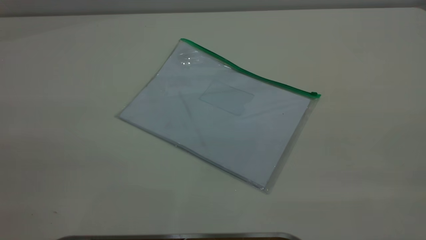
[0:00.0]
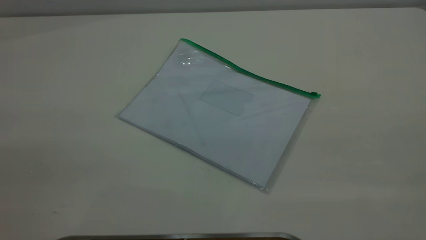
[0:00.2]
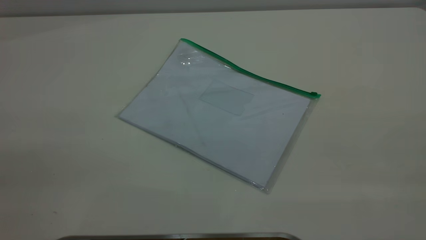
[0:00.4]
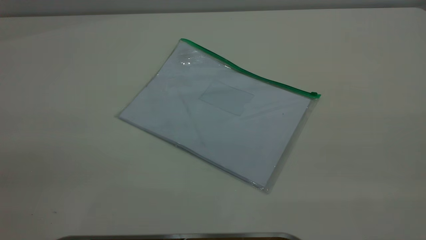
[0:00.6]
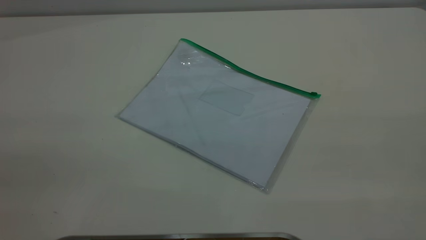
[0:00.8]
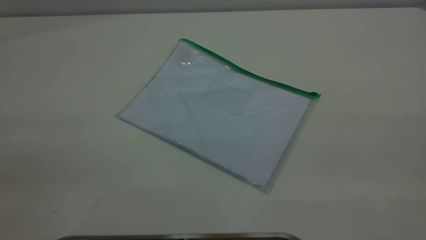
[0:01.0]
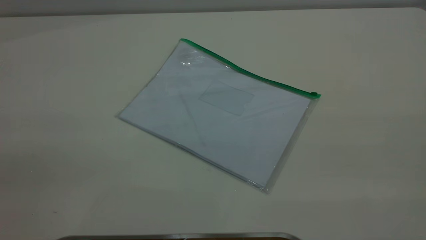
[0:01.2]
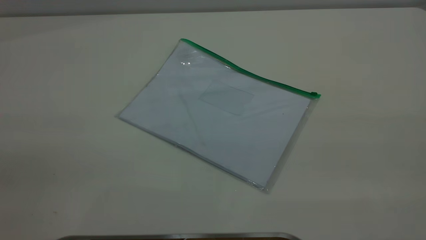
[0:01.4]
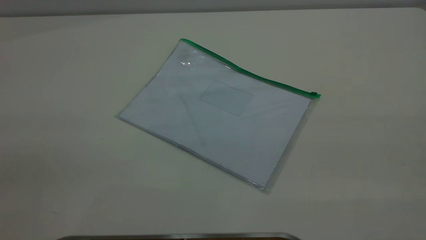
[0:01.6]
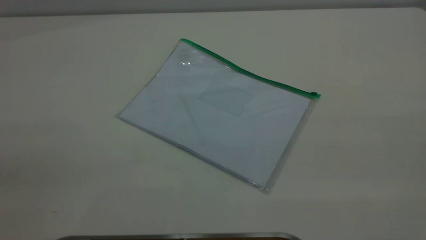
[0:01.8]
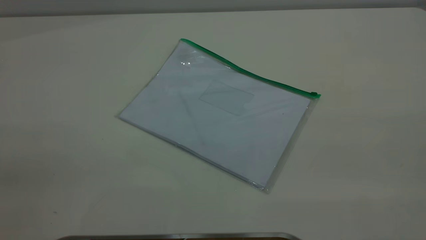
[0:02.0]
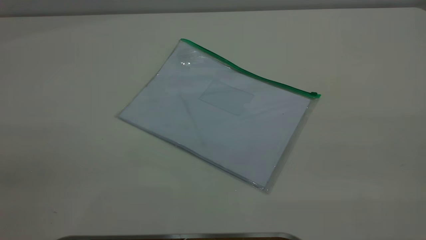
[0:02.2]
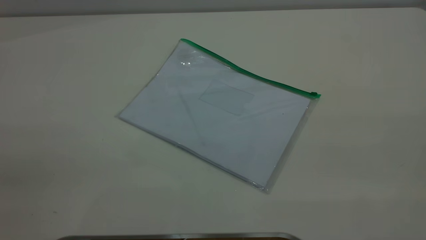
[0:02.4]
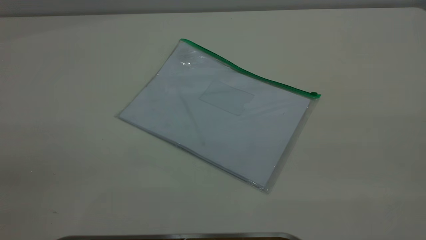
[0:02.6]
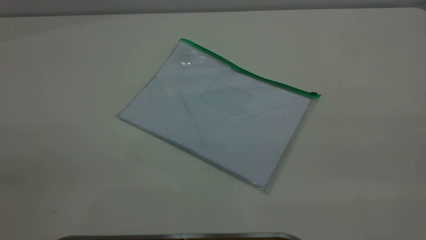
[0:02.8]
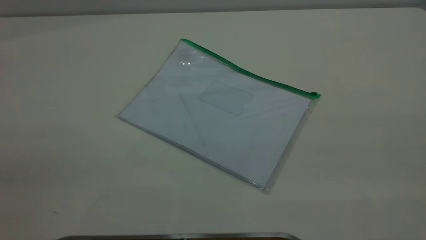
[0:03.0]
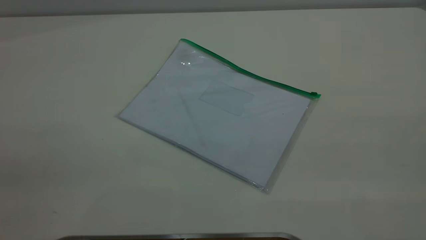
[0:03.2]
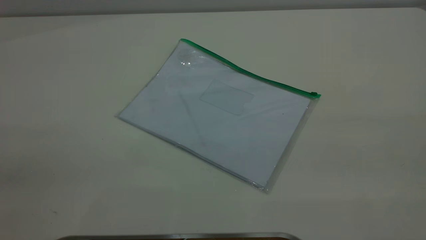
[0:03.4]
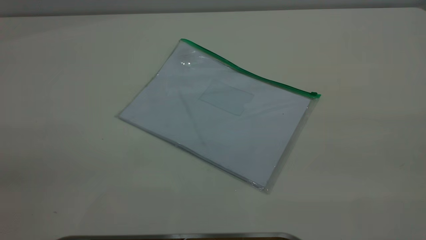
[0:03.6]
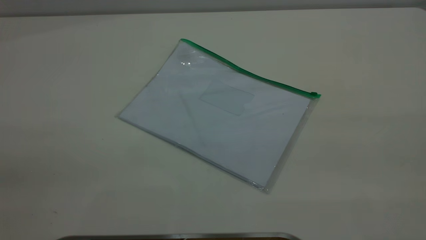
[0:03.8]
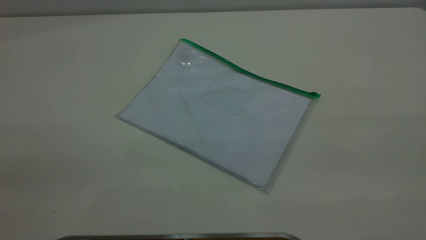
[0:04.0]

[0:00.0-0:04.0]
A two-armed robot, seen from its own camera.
0:02.6 to 0:04.0: Neither gripper changes place.
